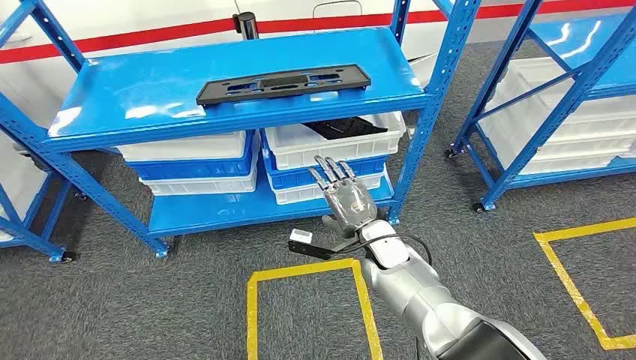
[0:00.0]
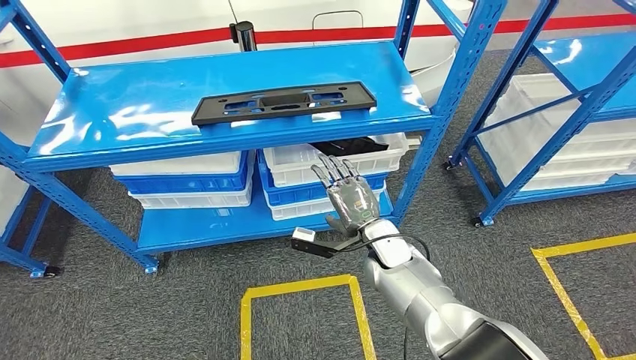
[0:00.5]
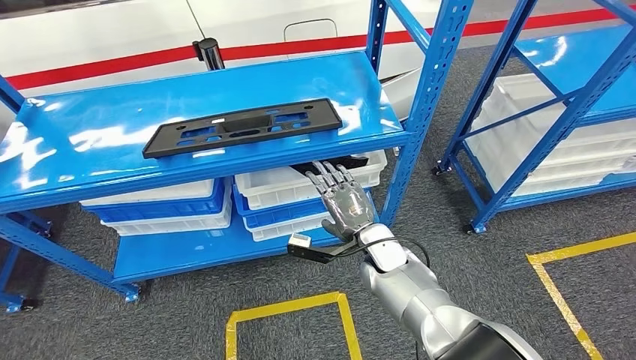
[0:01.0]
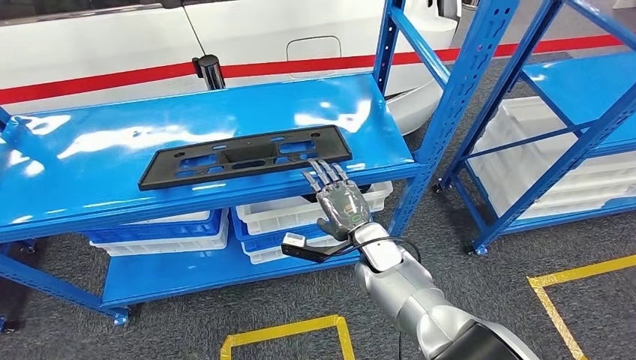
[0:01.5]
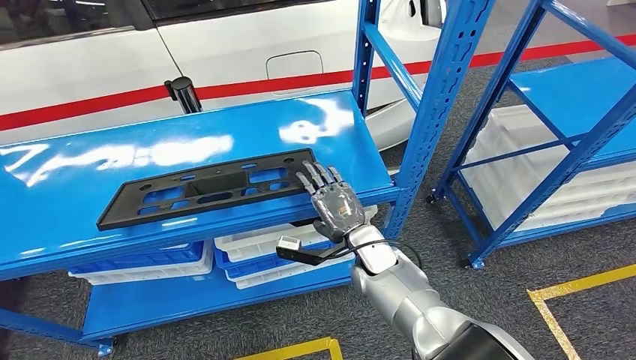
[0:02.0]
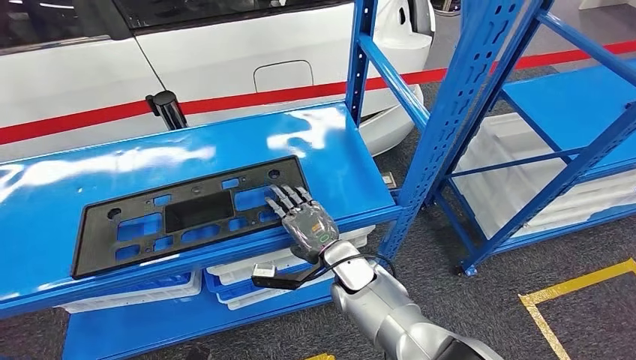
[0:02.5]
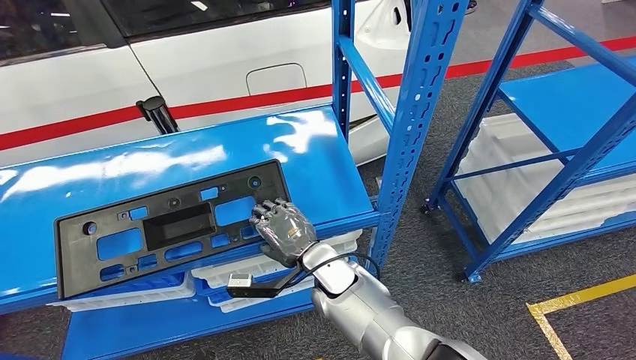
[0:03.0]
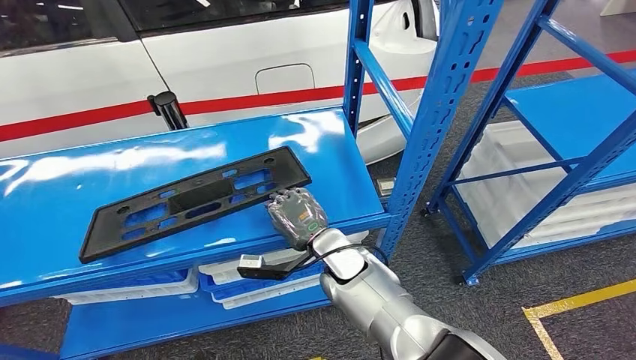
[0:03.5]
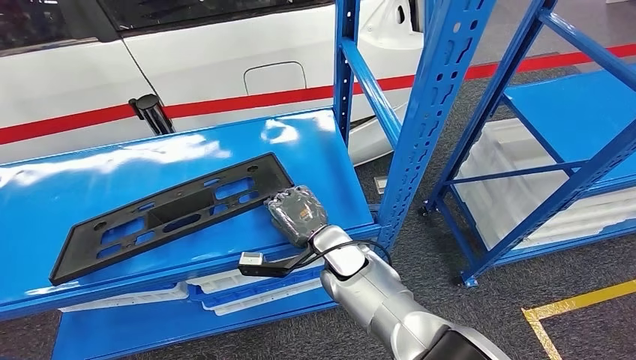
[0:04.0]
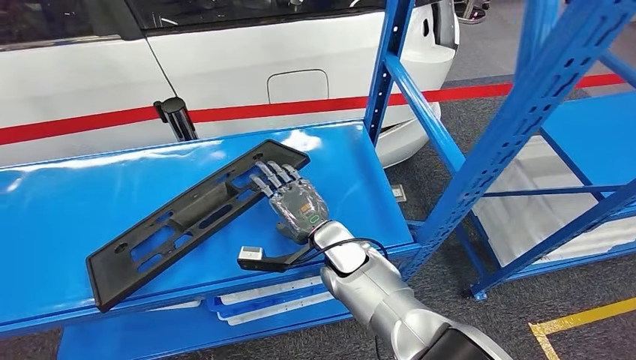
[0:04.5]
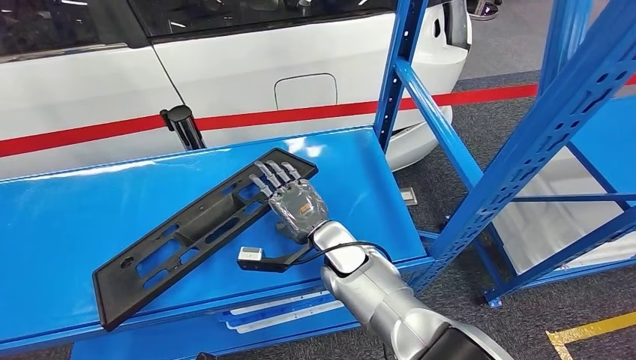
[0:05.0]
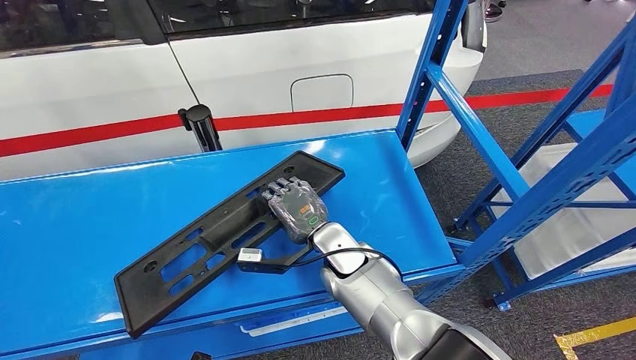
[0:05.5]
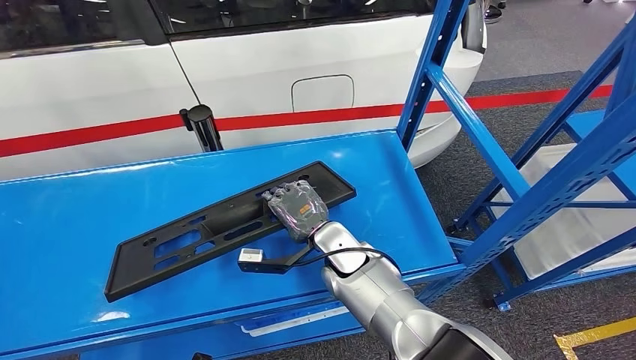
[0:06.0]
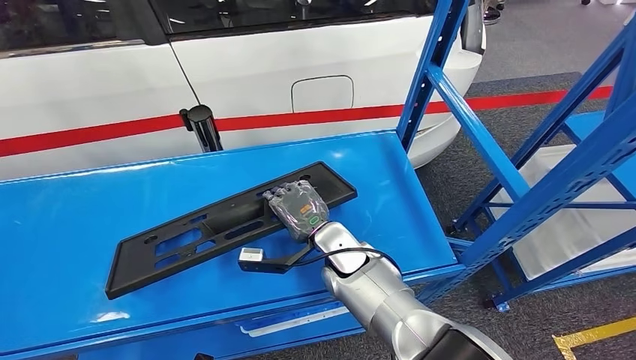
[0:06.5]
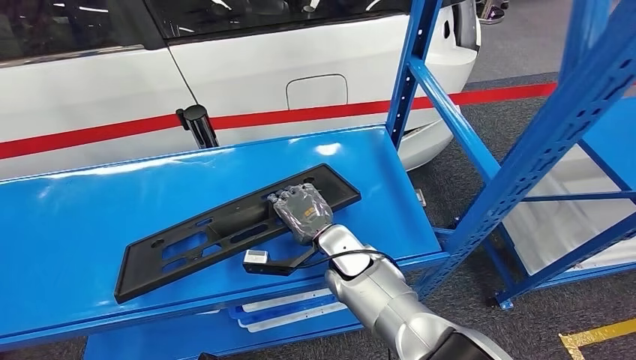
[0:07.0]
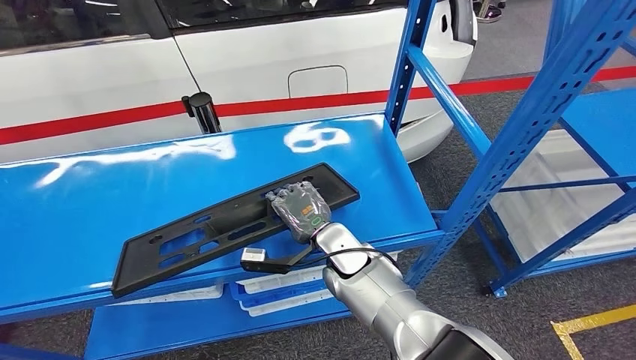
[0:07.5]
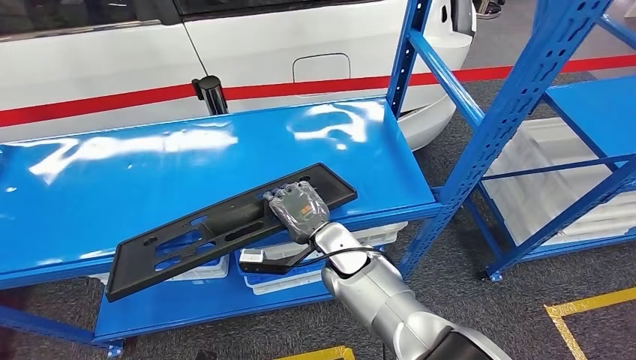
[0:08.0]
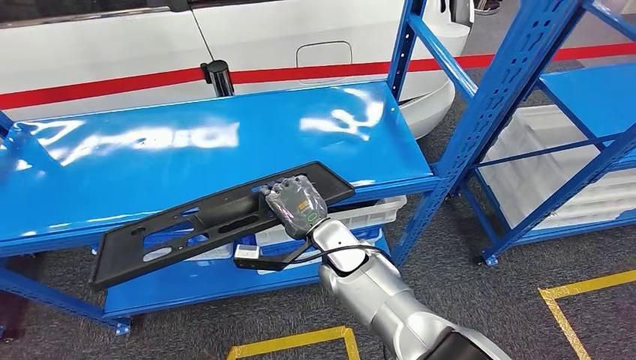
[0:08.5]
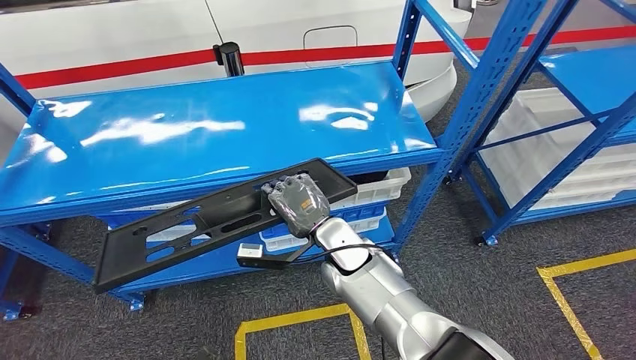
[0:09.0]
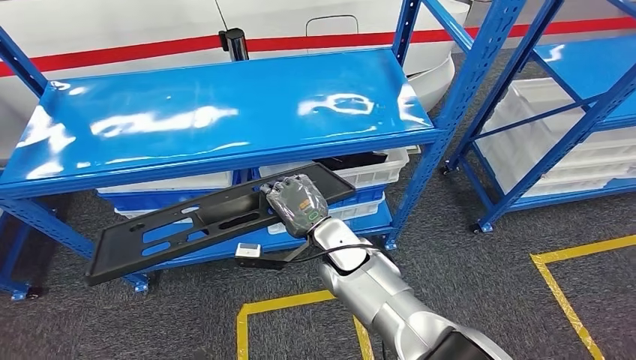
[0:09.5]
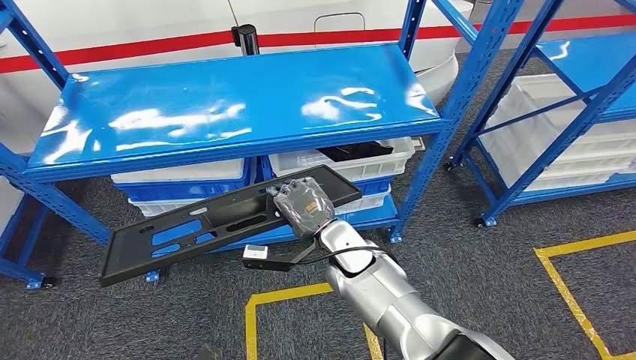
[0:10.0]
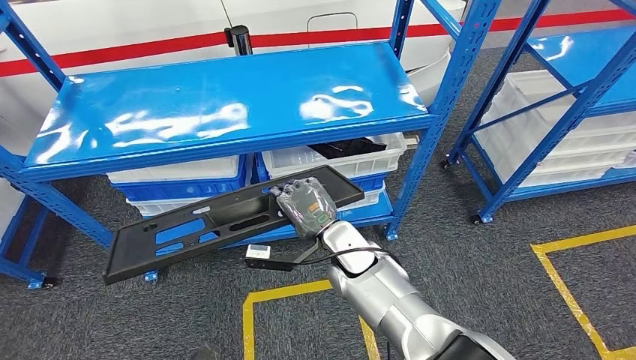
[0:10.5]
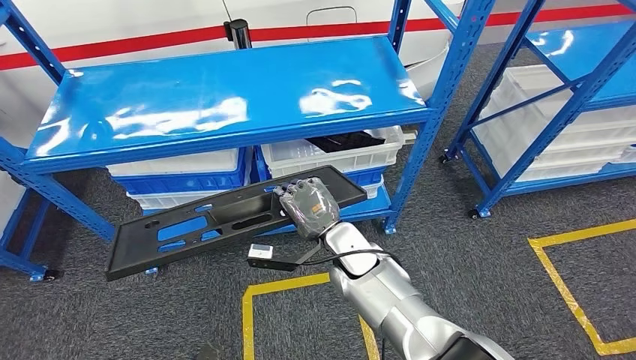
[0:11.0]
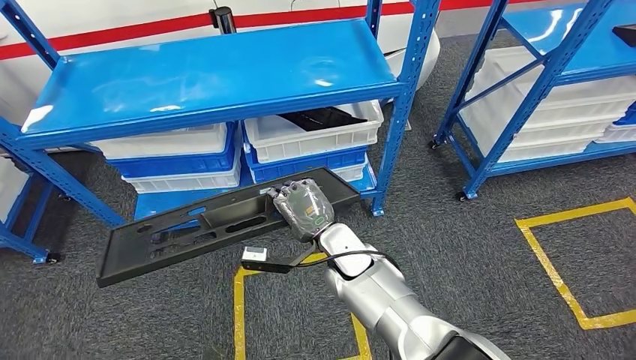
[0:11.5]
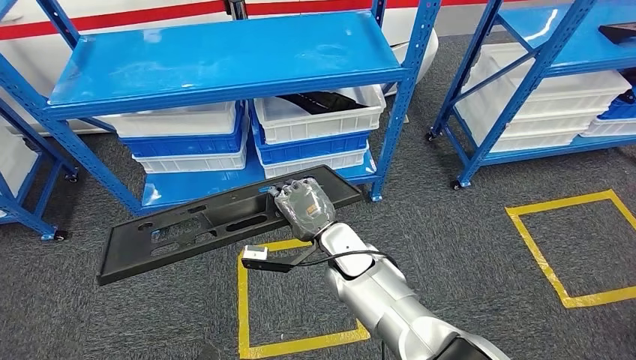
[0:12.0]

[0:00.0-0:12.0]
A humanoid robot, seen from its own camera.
Step, 0:00.0 to 0:09.5: Pick up the large material from the shelf.

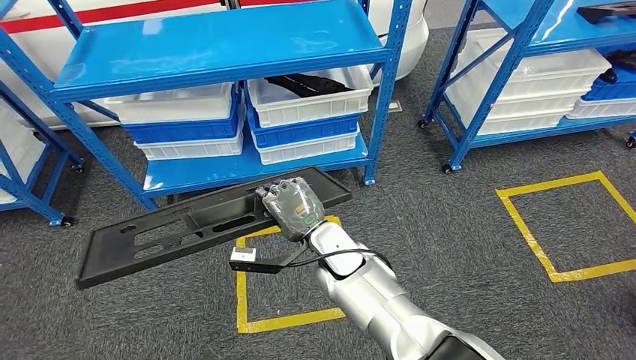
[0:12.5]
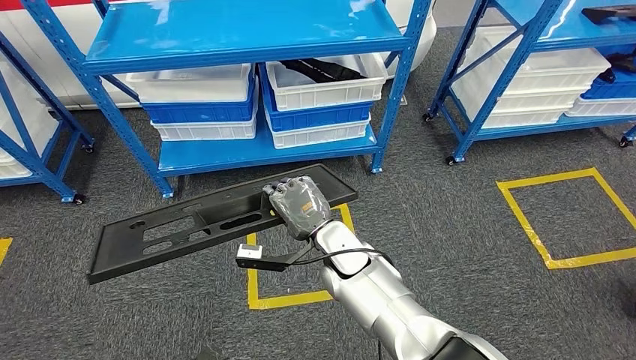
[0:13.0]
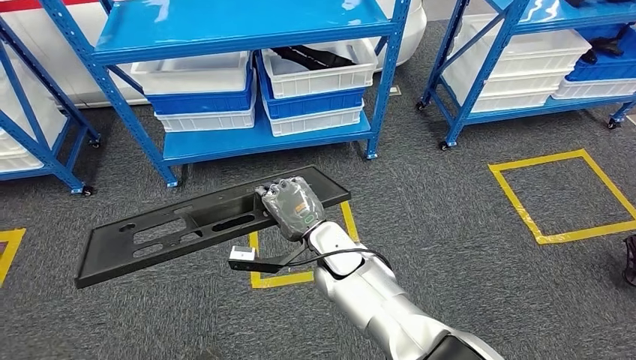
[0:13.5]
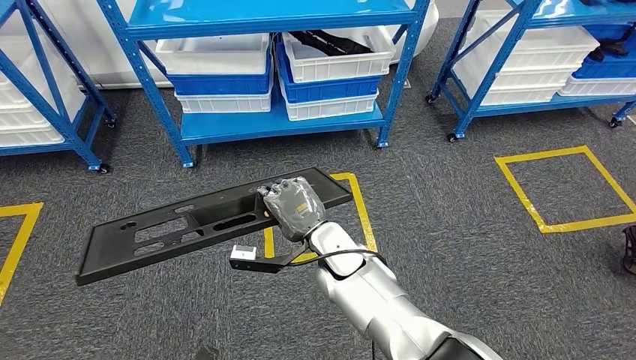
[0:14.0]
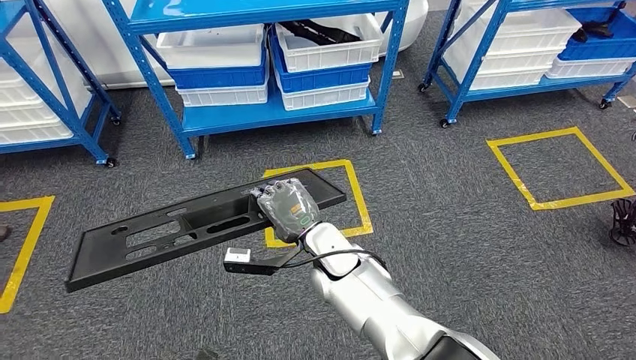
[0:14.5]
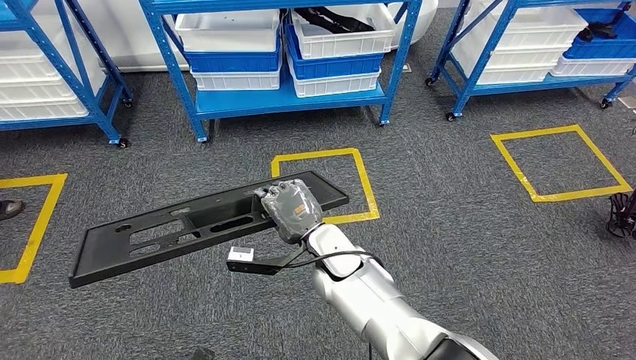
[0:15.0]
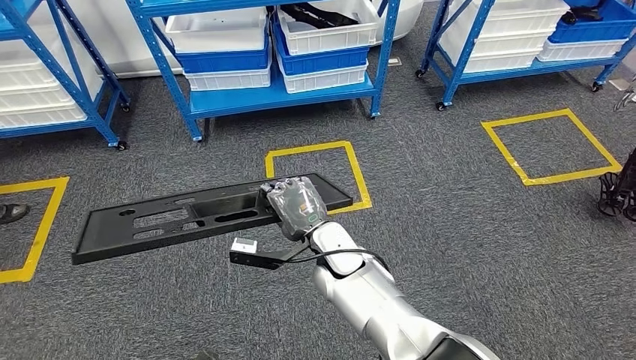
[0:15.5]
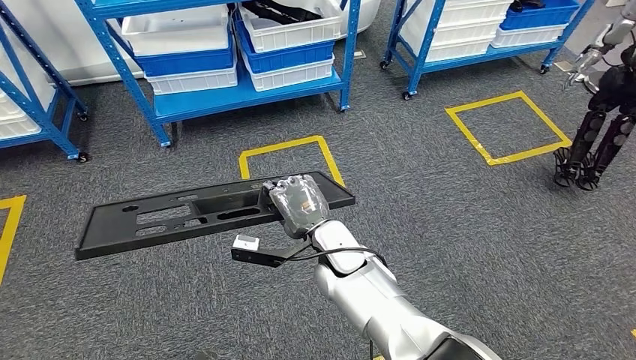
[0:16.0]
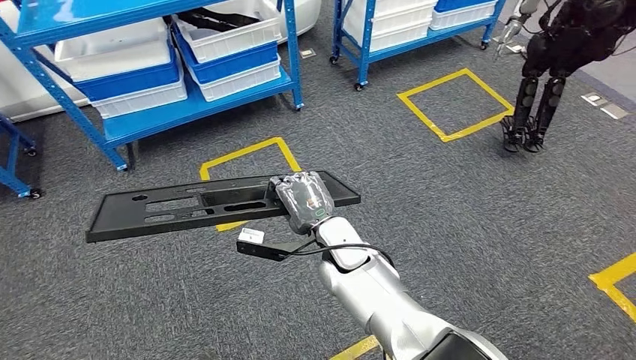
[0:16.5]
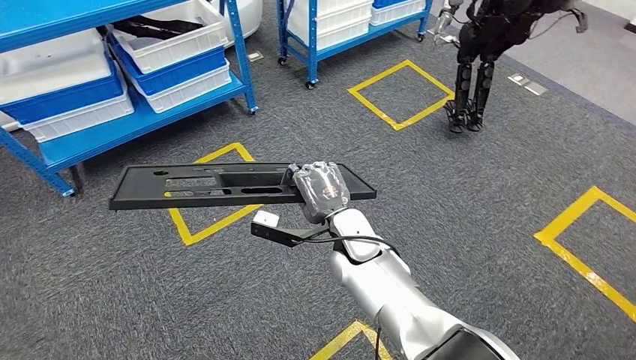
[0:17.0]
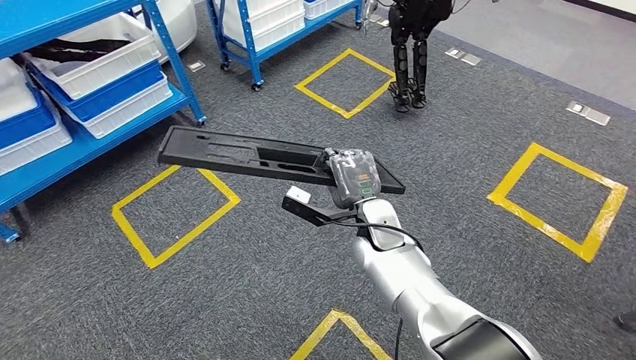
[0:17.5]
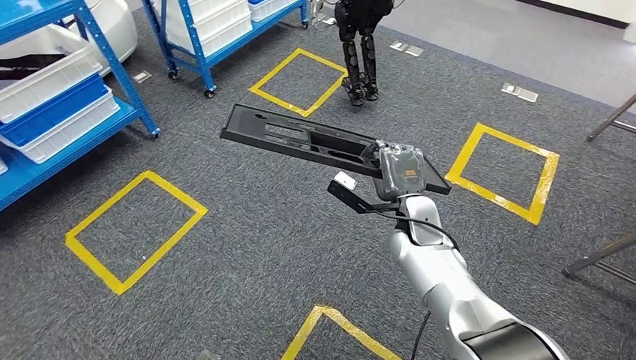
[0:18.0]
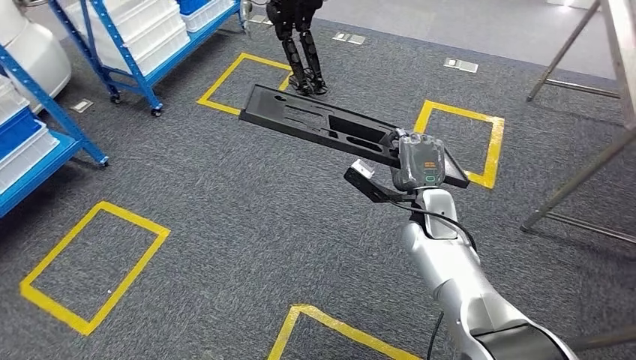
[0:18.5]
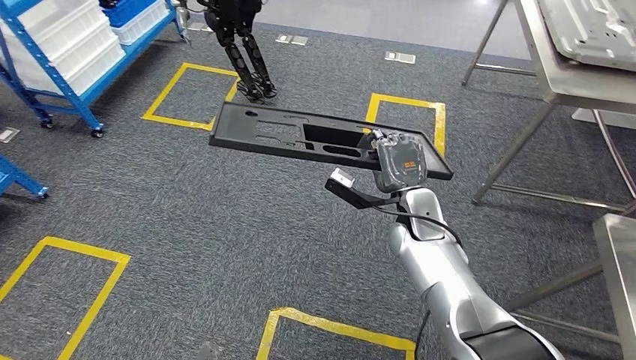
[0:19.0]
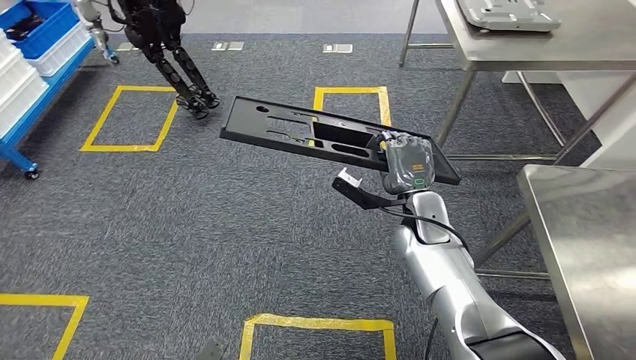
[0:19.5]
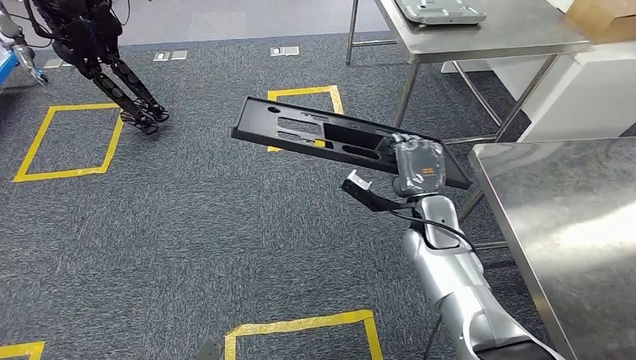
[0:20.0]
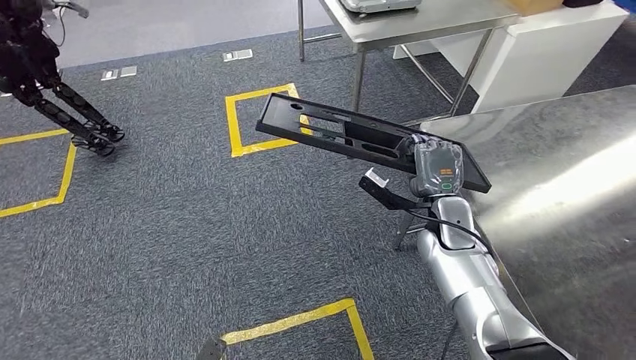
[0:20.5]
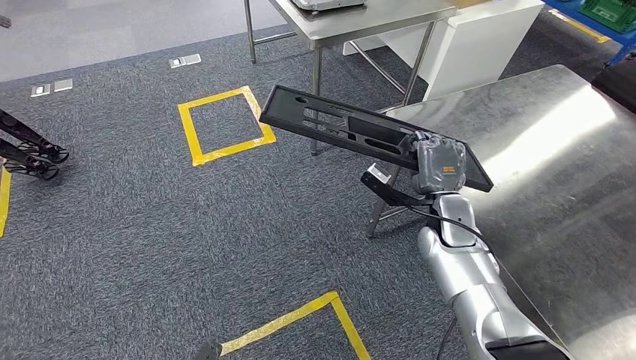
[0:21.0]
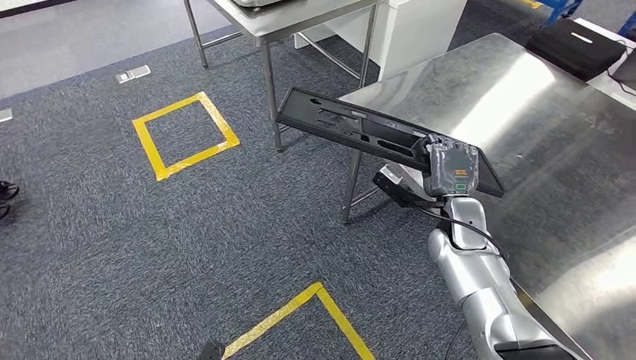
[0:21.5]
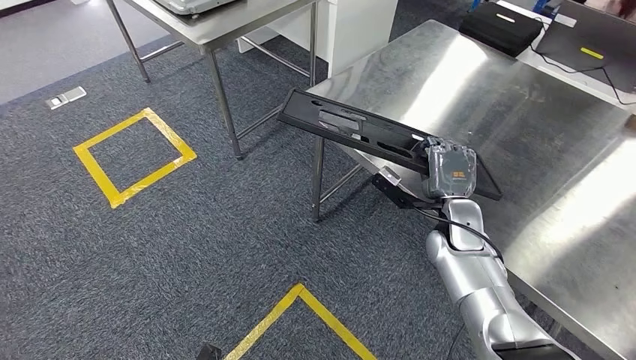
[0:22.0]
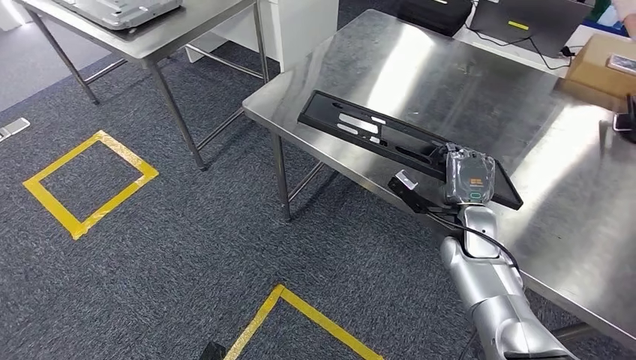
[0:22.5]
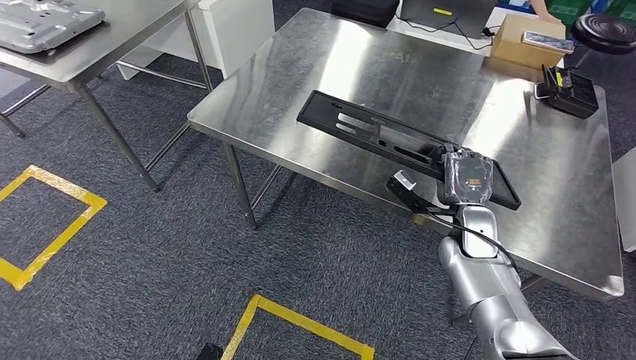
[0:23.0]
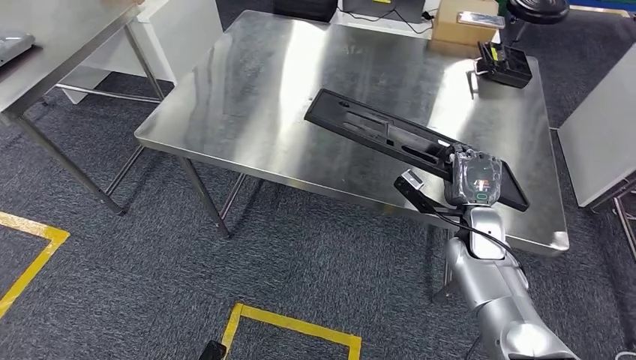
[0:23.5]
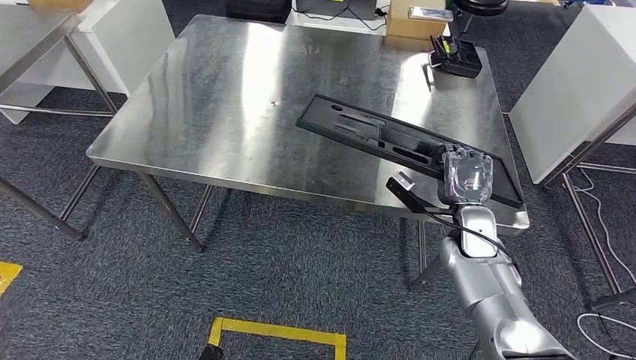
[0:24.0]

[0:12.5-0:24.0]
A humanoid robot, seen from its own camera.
Step, 0:12.5 to 0:22.0: Move the large material to the workbench.
